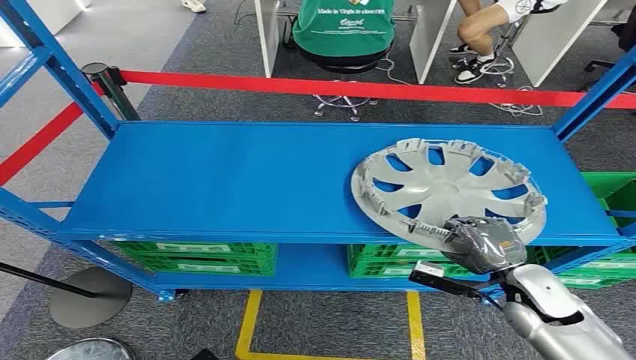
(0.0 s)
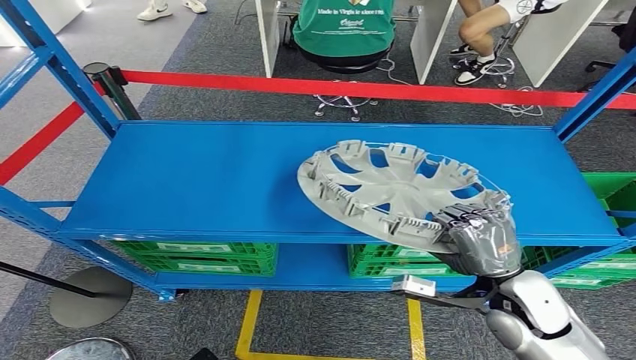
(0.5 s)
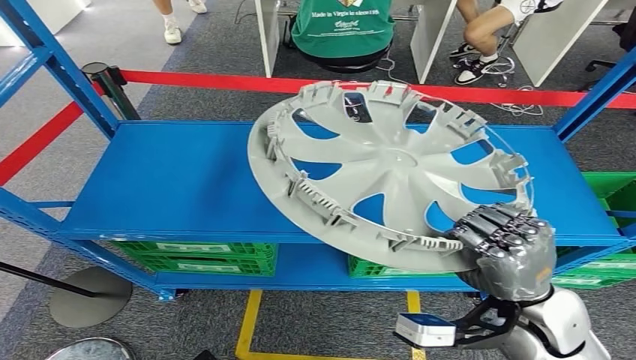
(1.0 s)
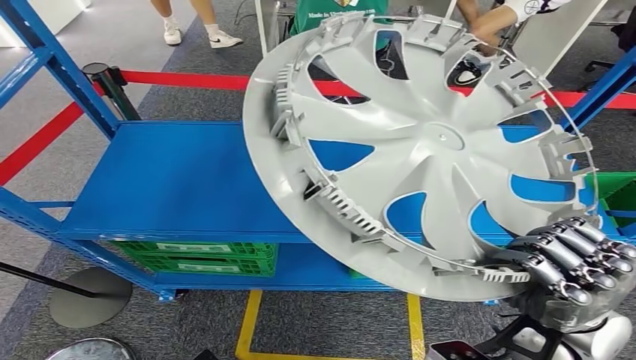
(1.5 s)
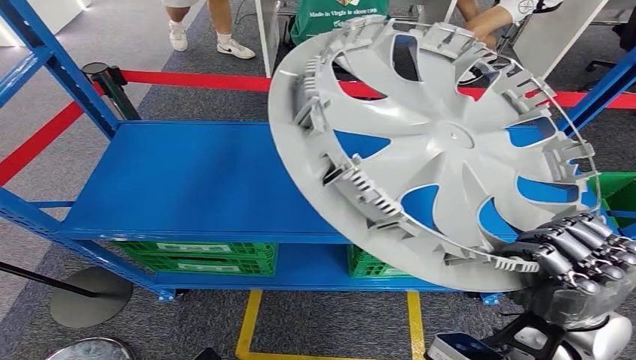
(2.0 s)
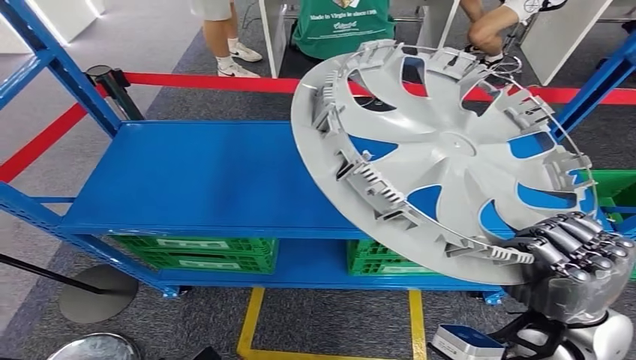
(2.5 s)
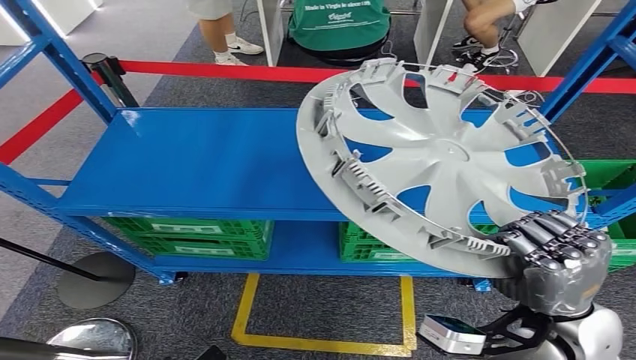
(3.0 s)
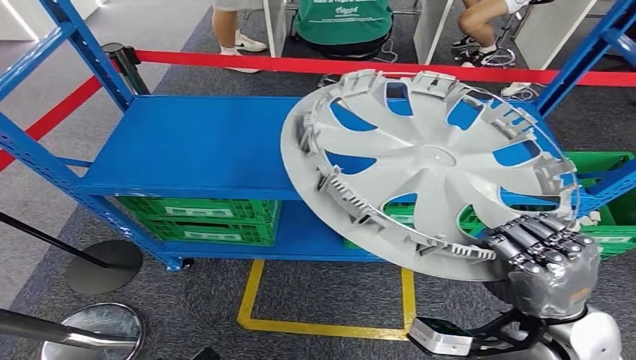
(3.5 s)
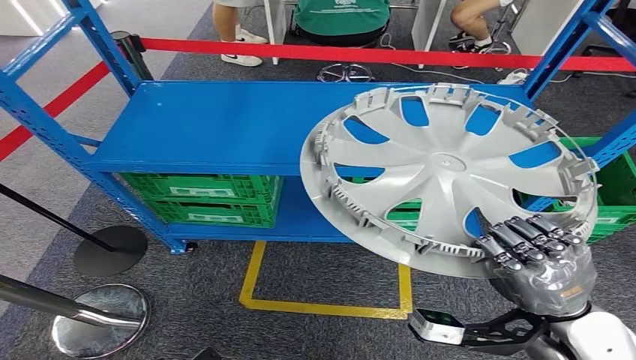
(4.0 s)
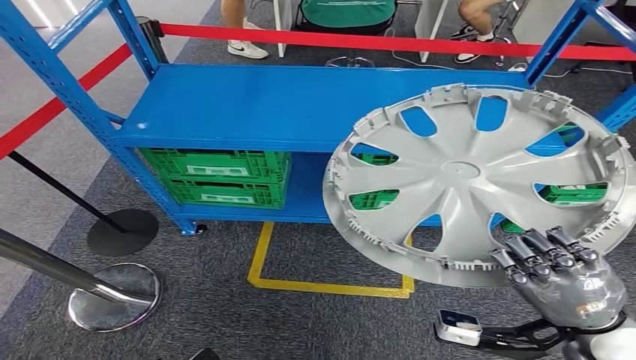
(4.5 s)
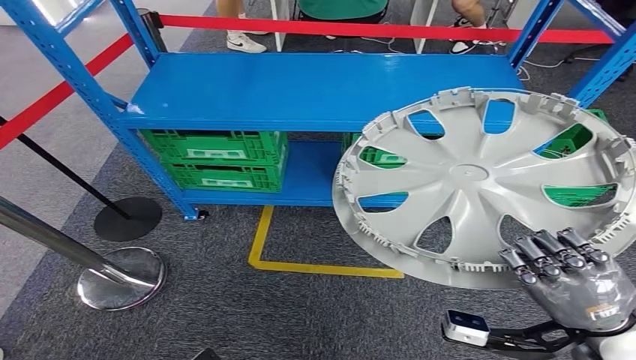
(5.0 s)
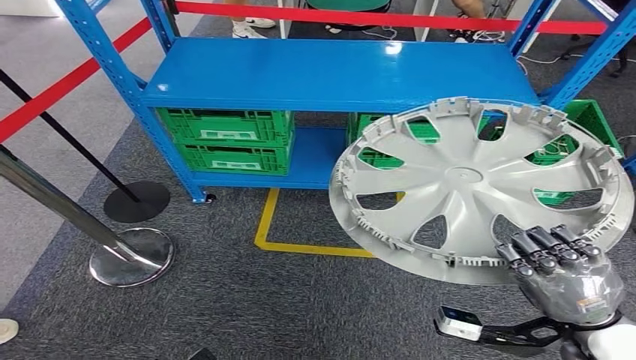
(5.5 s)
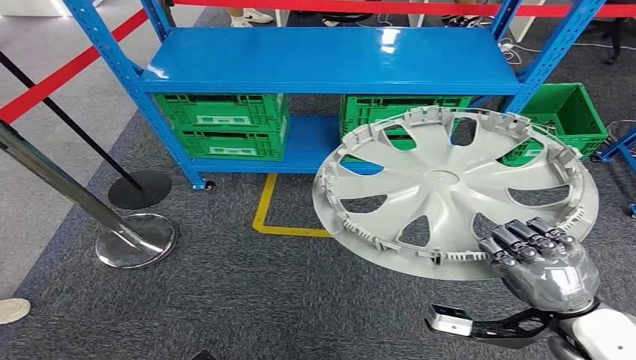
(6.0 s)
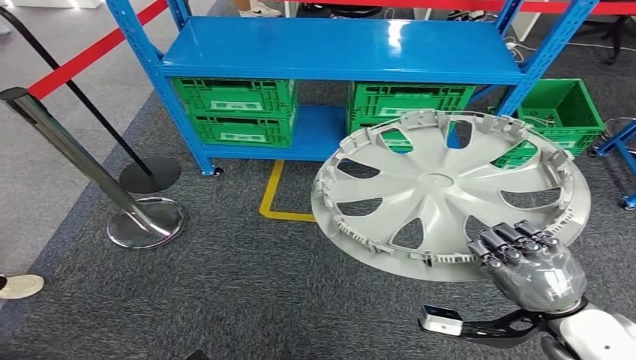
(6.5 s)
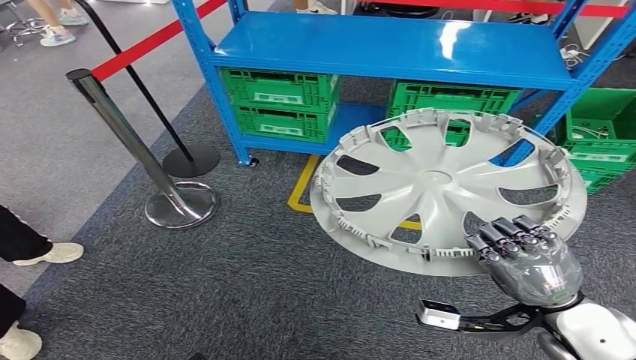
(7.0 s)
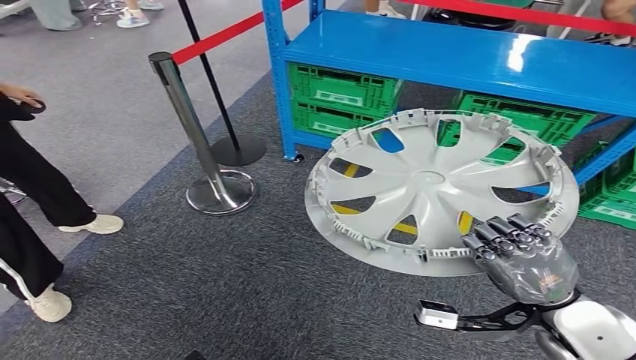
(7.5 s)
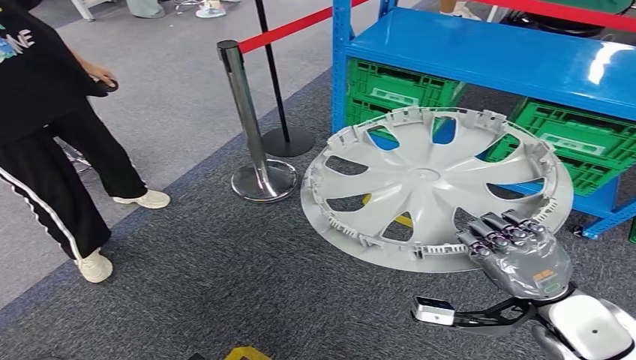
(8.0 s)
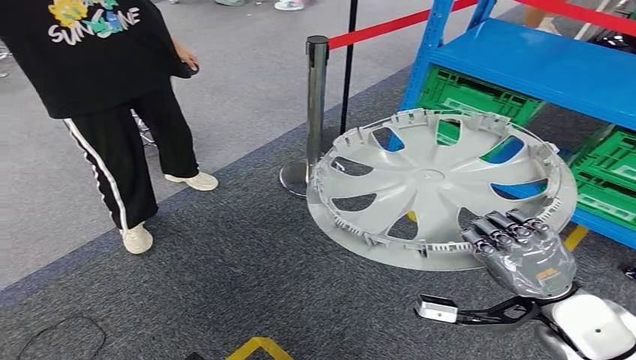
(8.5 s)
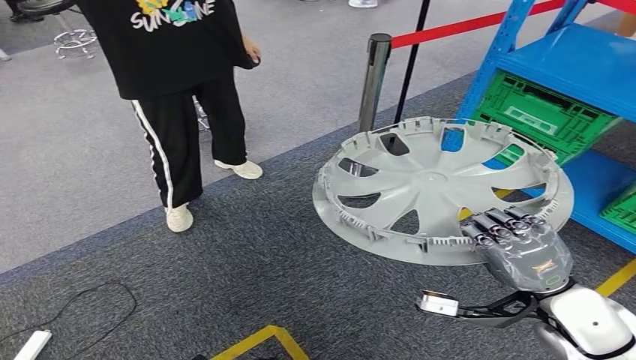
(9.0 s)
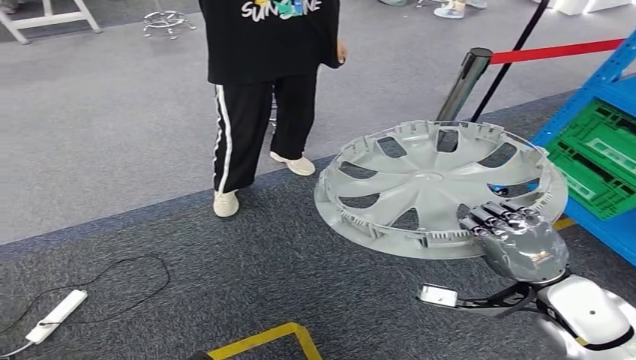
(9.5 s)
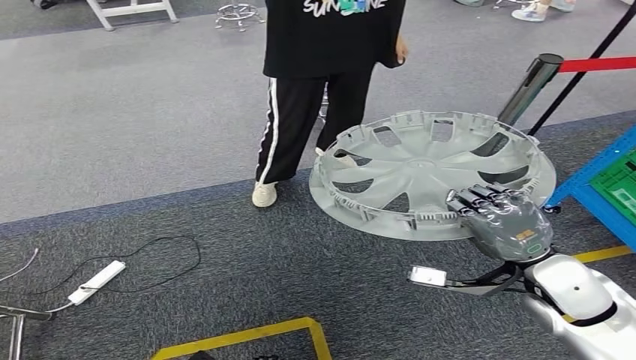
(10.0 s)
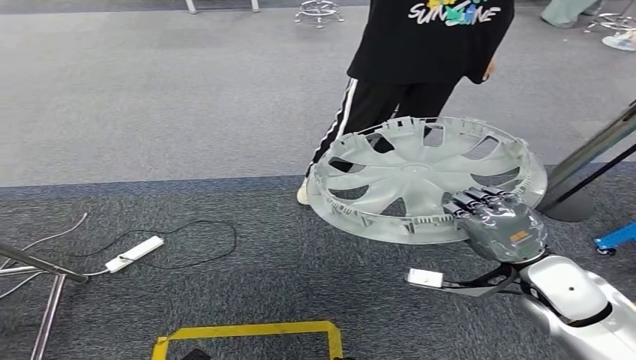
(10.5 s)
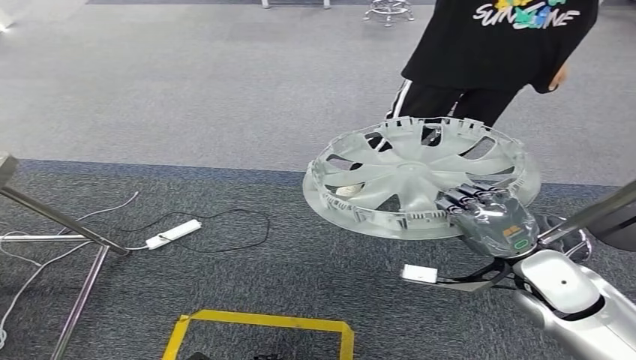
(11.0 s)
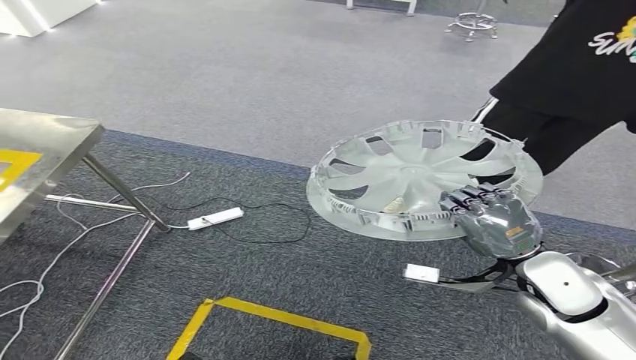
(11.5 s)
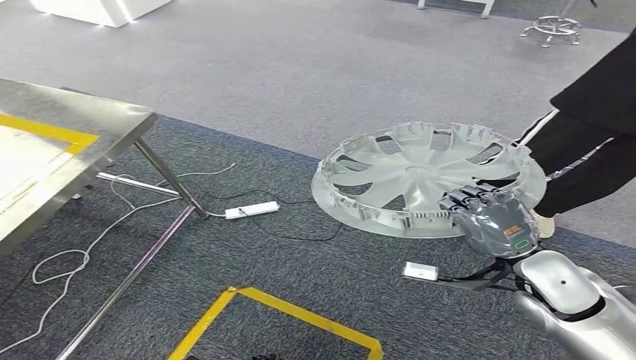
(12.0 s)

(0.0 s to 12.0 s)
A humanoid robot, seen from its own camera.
Step, 0.0 s - 1.5 s: Take small components from the rack.

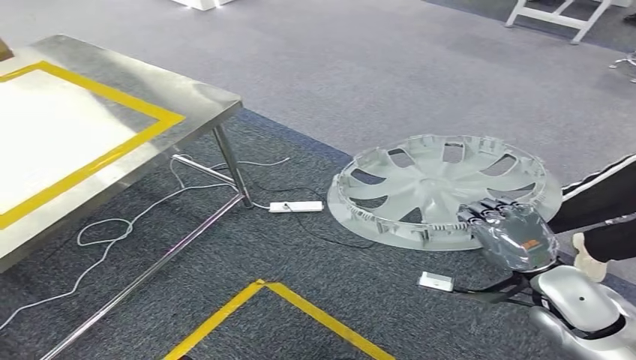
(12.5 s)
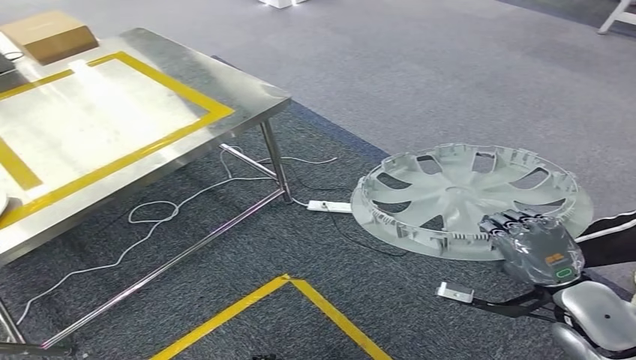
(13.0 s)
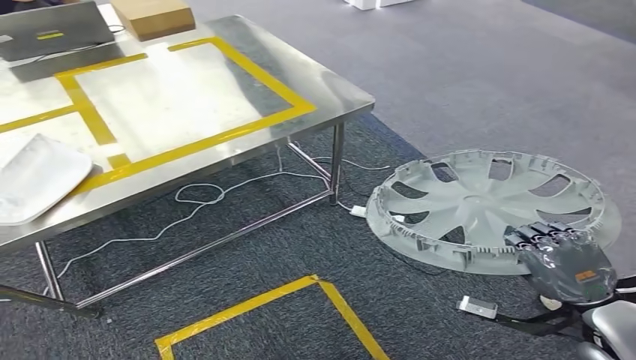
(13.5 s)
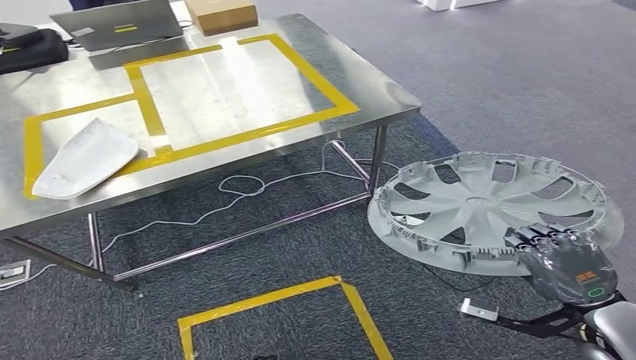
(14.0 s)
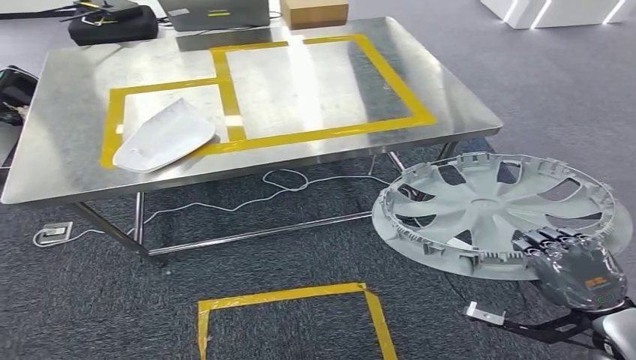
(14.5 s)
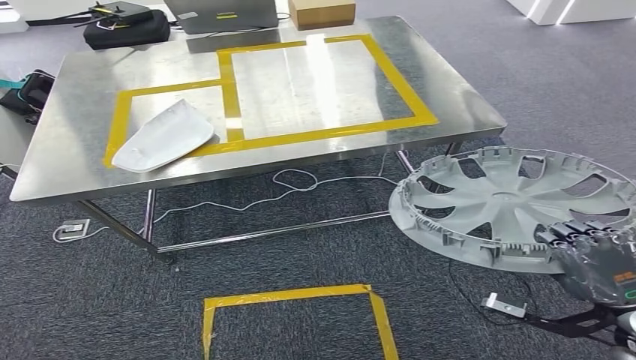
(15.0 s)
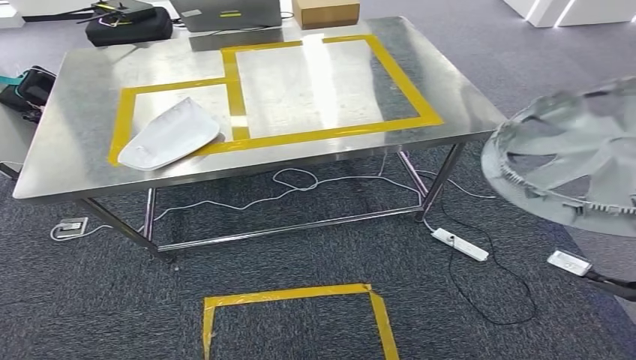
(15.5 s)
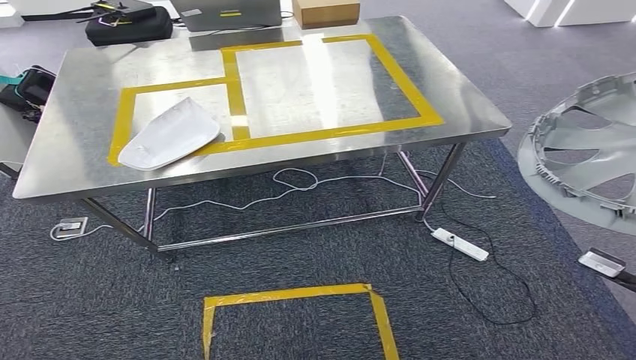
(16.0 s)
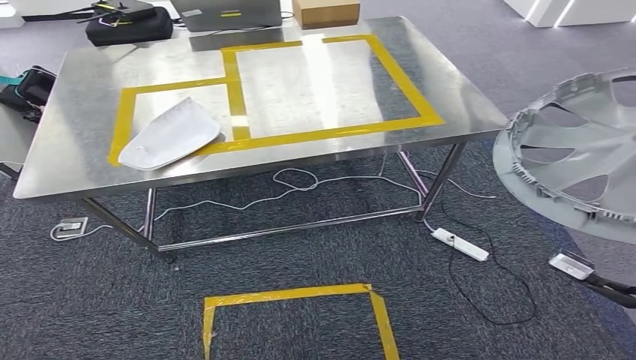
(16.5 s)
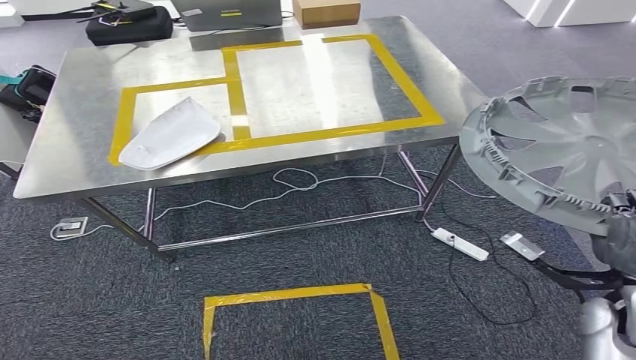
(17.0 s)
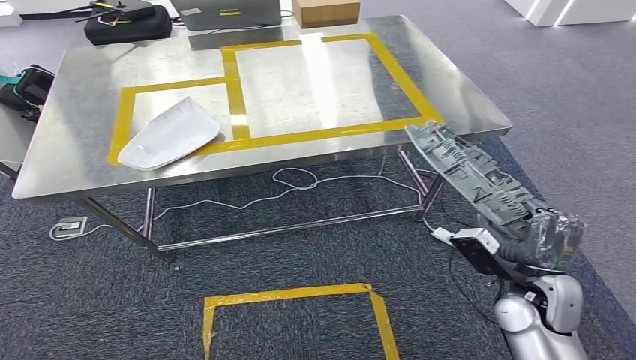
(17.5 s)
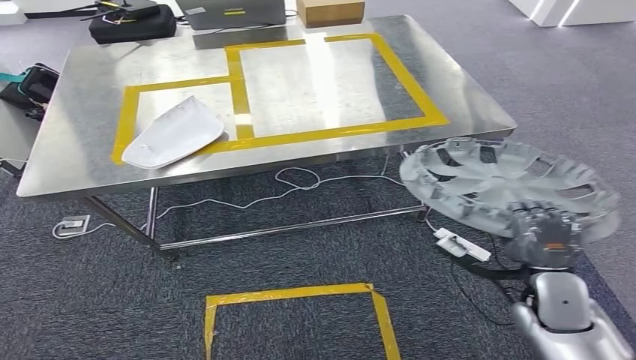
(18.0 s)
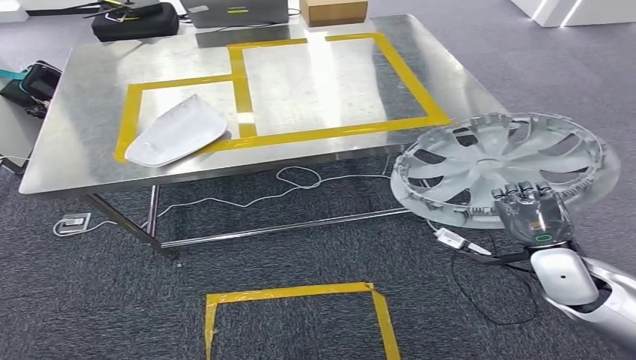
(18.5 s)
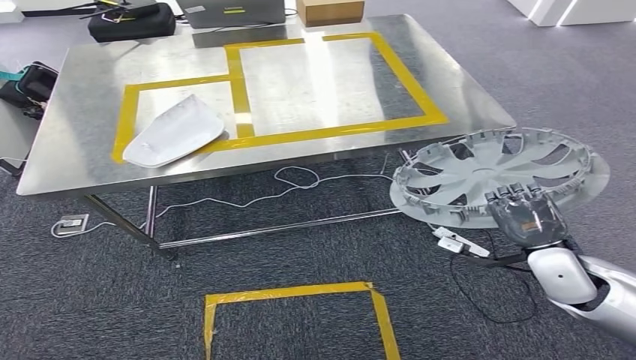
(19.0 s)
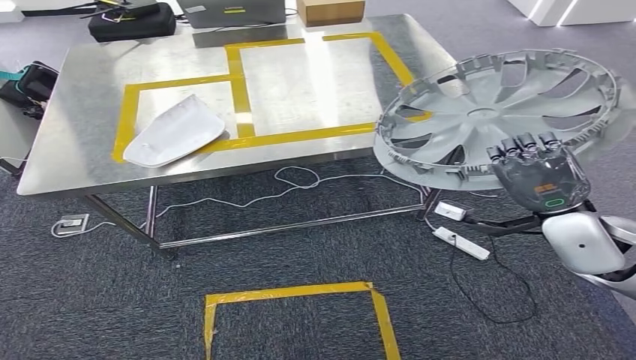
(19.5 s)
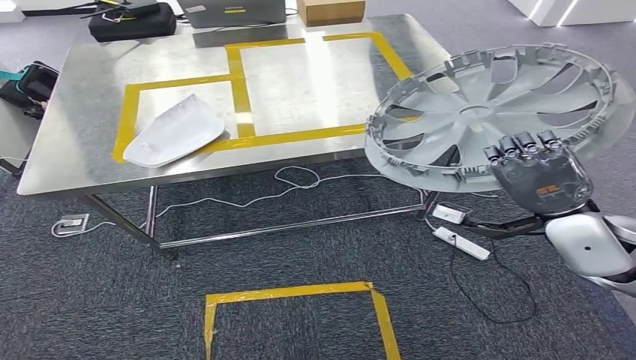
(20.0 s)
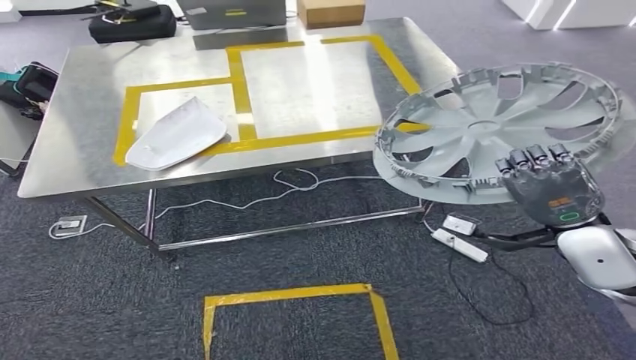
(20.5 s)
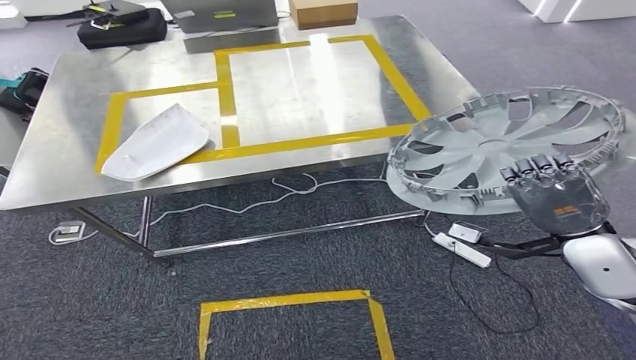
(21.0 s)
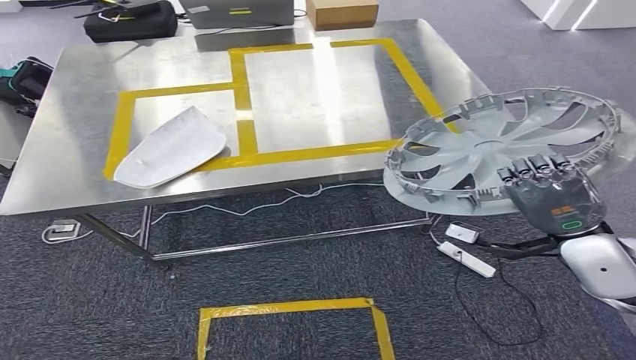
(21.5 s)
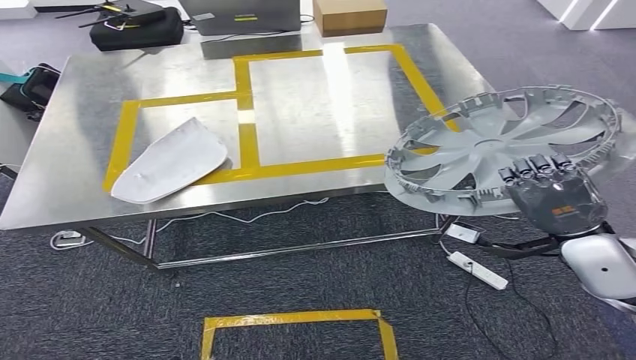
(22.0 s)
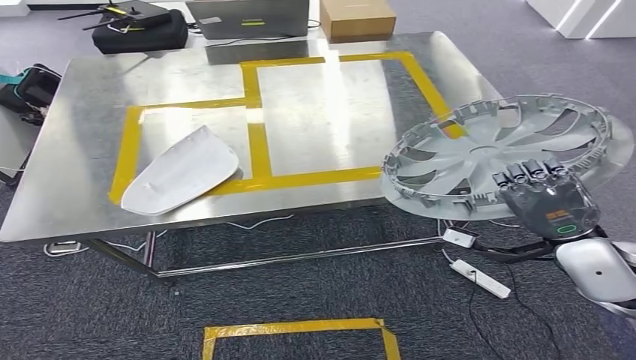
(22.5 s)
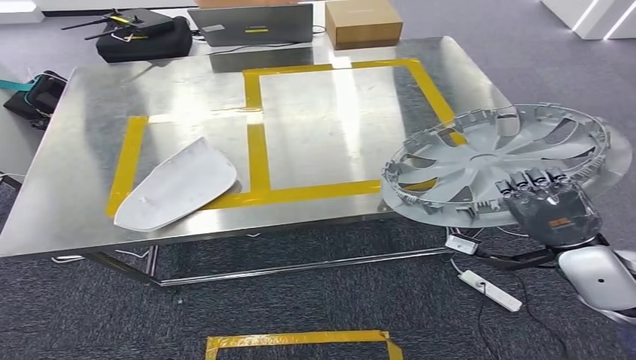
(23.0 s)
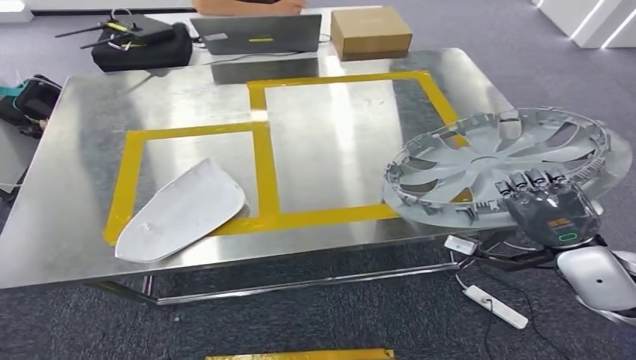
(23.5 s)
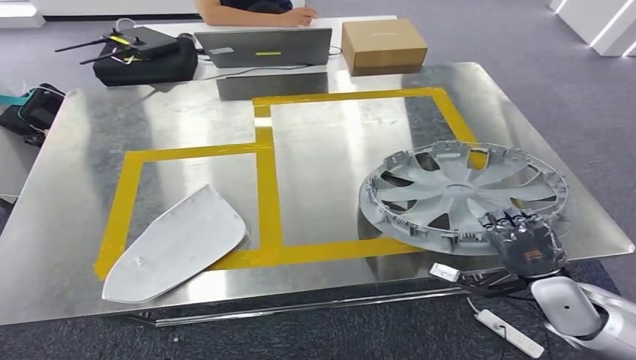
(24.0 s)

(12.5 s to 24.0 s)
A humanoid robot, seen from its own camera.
Step, 12.5 s - 15.0 s: Move the small parts to the workbench.
18.5 s - 20.0 s: The right hand goes roughly 10 cm upward.
